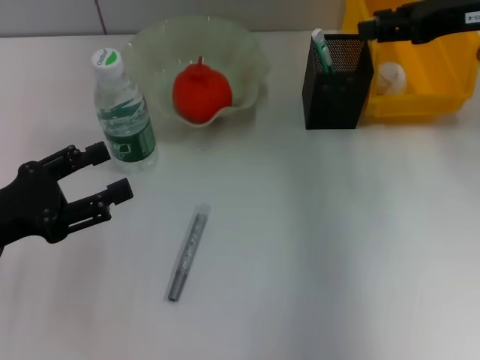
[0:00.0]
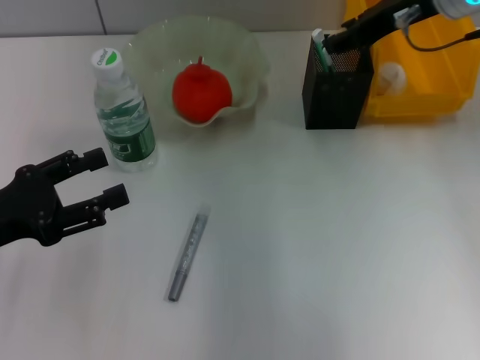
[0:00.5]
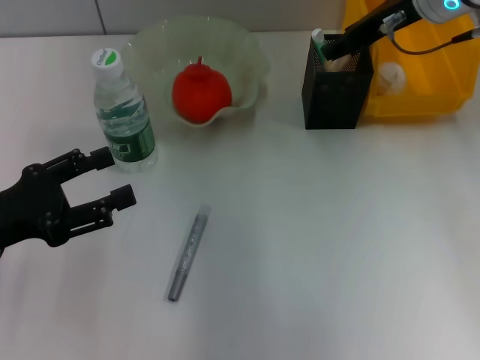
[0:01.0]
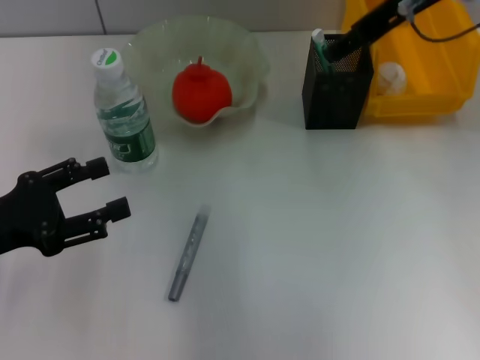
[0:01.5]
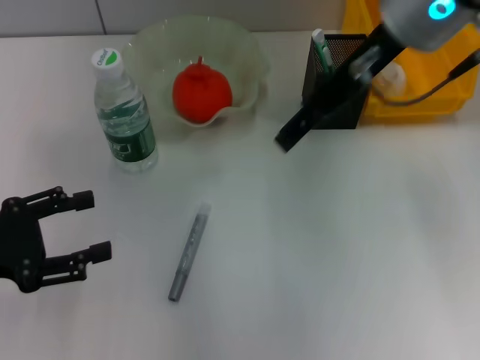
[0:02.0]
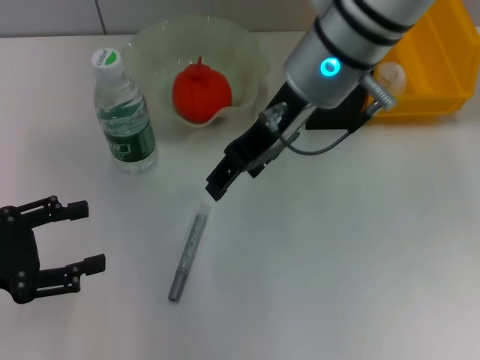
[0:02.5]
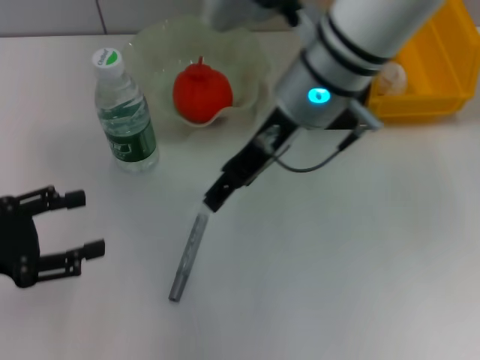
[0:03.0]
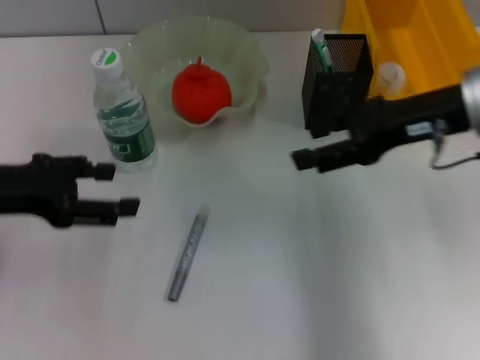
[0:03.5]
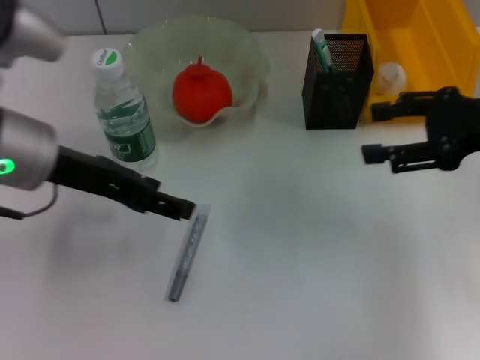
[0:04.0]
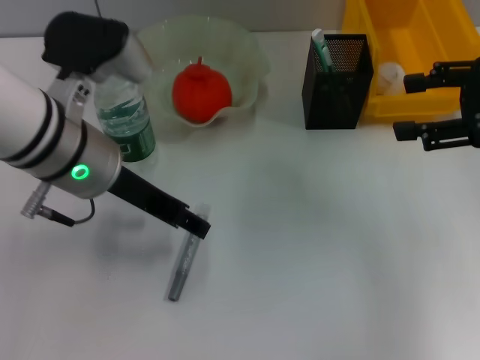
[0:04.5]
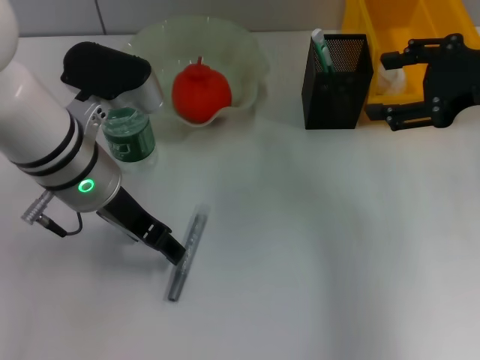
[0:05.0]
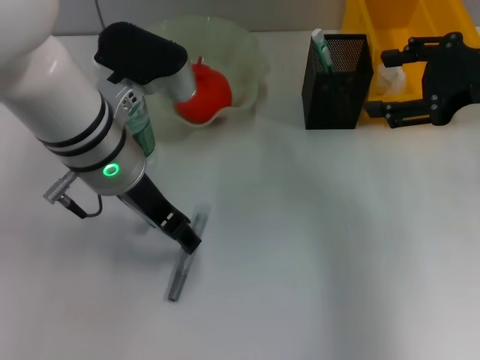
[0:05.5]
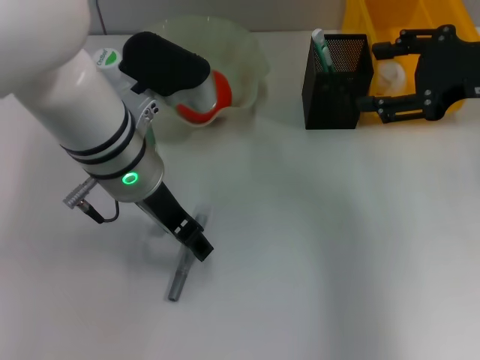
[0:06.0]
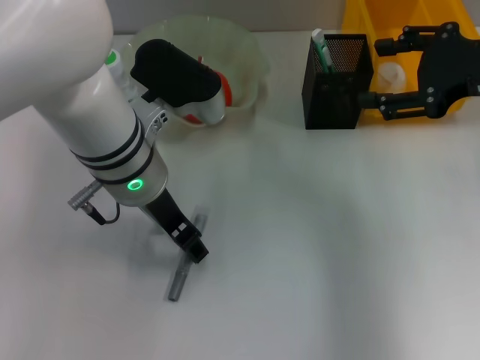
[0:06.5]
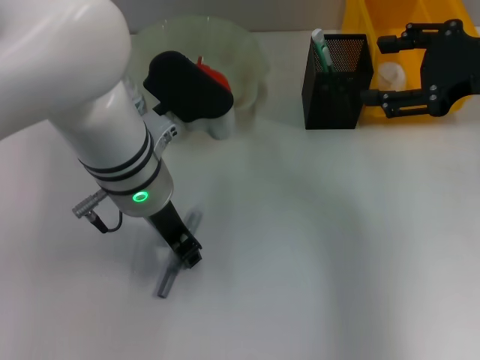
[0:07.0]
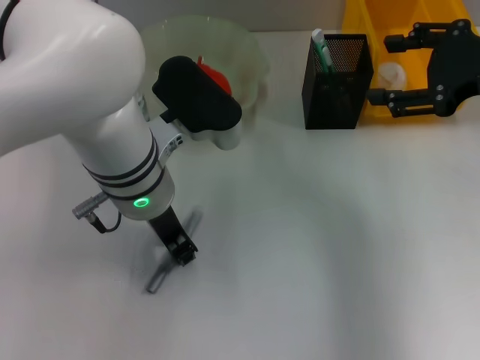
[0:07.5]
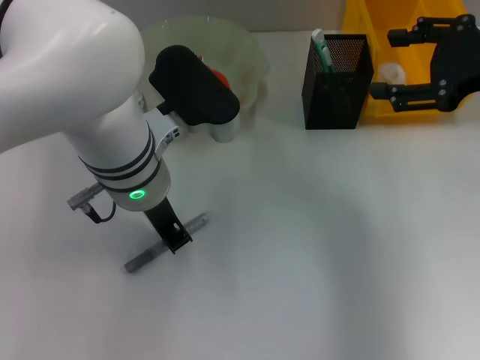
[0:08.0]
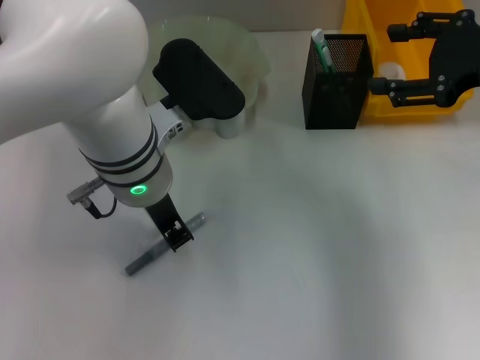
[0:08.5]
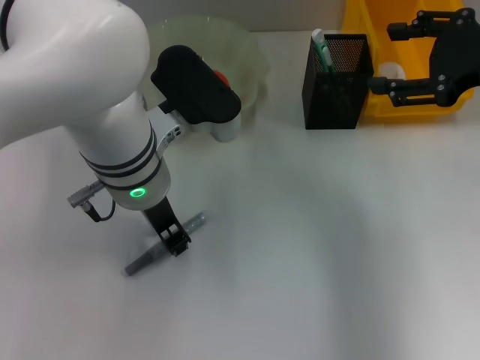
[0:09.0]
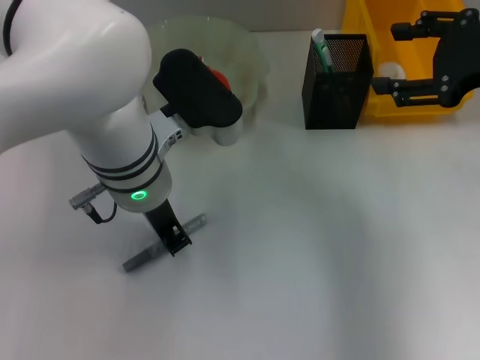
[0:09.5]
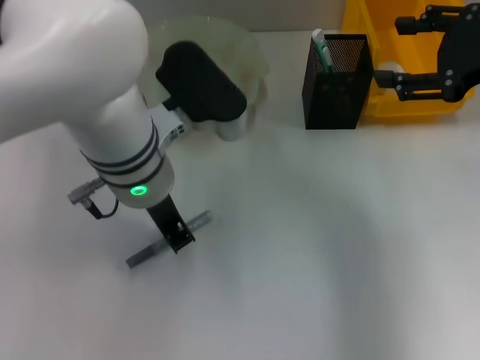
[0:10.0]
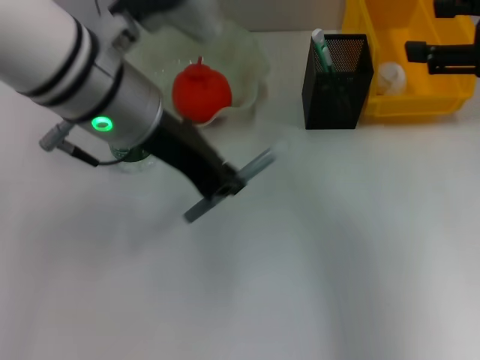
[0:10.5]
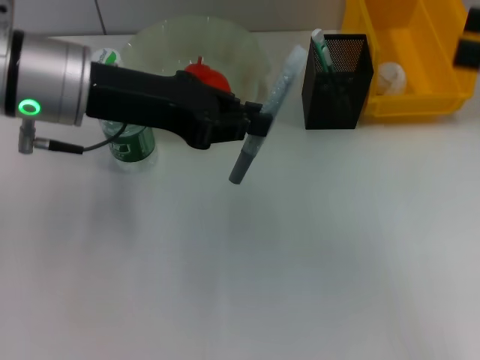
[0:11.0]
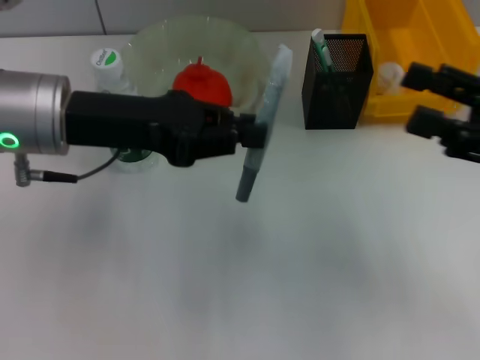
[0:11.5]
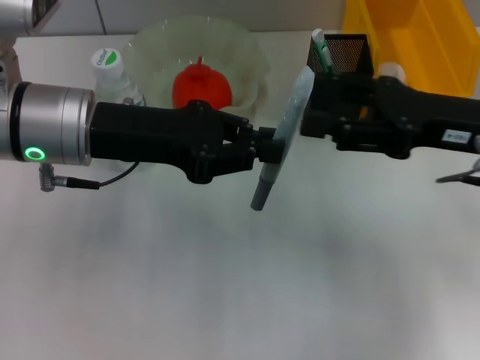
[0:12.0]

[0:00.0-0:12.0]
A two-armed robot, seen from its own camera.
Step, 0:01.5 to 0:09.5: Grab the gray glue with the left hand.
0:00.0 to 0:02.0: The right gripper travels to the left by roughly 15 cm, and opens its fingers.
0:02.0 to 0:04.0: The right gripper travels to the right and downward by about 20 cm. Meanwhile the left gripper travels to the right, forward and upward by some 20 cm.
0:04.0 to 0:06.0: The left gripper moves to the right, some 10 cm.
0:06.0 to 0:08.0: The left gripper closes up.
0:08.0 to 0:10.0: Both grippers stay put.
0:10.0 to 0:12.0: The right gripper goes about 10 cm downward and to the left. Meanwhile the left gripper goes approximately 10 cm to the left.

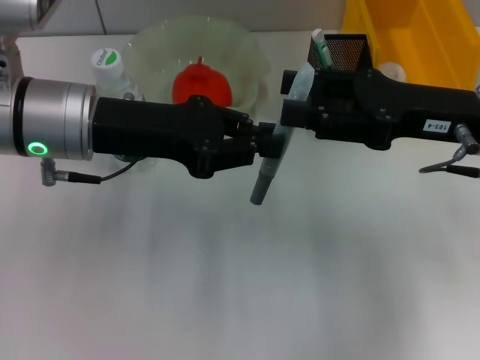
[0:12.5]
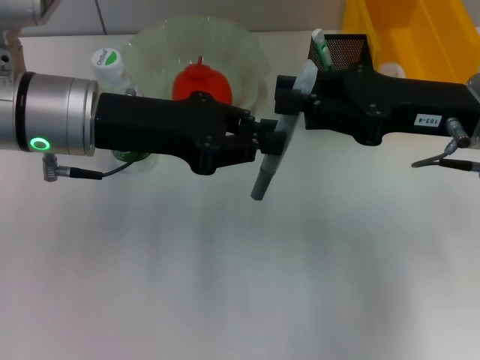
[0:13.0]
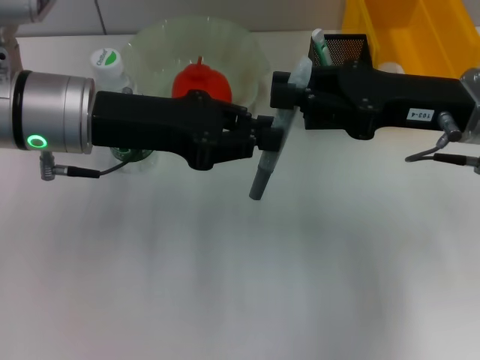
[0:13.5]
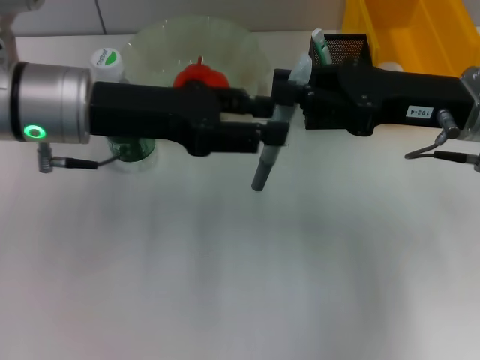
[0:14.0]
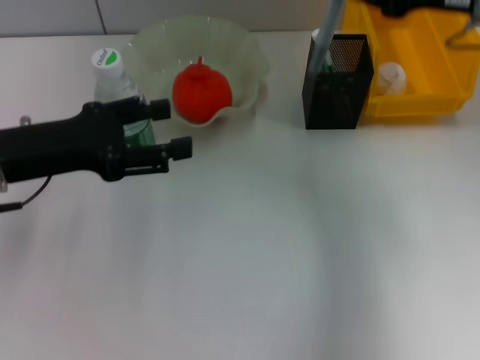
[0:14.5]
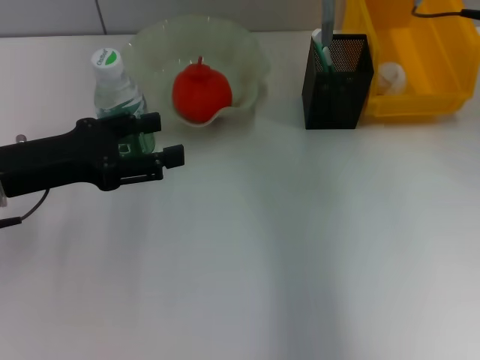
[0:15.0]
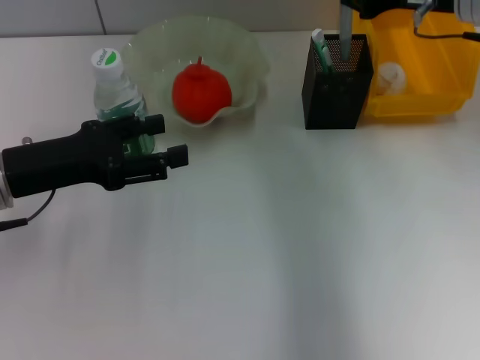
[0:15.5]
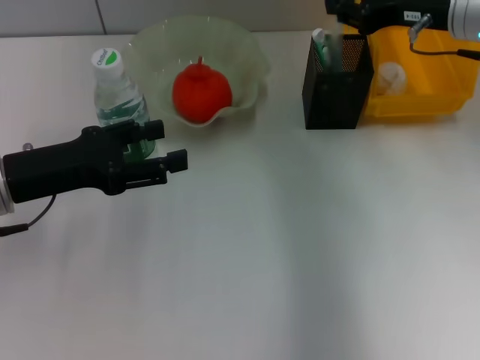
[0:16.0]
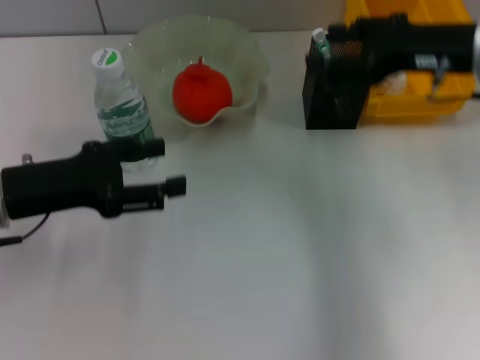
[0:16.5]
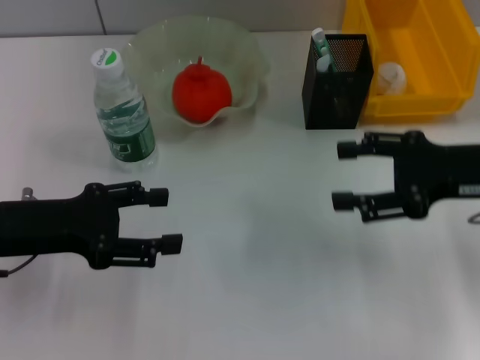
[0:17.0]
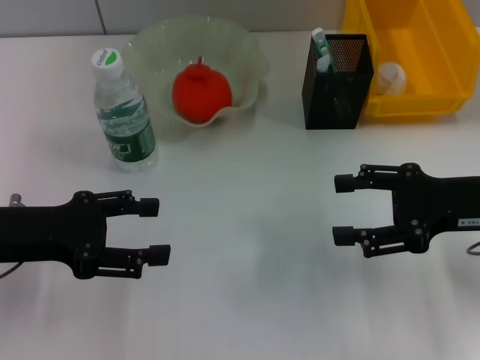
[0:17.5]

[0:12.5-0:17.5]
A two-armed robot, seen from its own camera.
Step, 0:14.5 to 0:16.0: Place the gray glue into the pen holder with the right hand.
0:12.5 to 0:15.0: The left gripper goes roughly 10 cm to the left and downward, and opens its fingers. The right gripper is displaced forward and upward by some 10 cm, and closes its fingers.
0:15.0 to 0:17.5: The right gripper moves backward, downward and to the right, approximately 20 cm, and opens.
